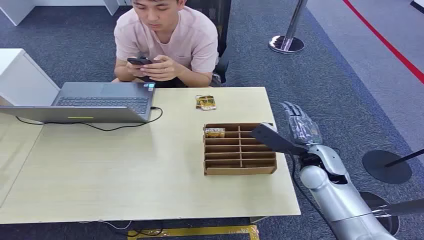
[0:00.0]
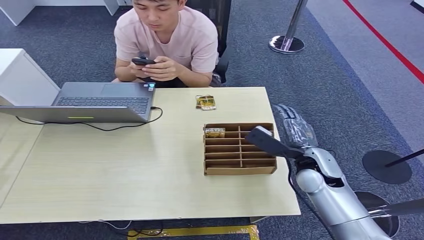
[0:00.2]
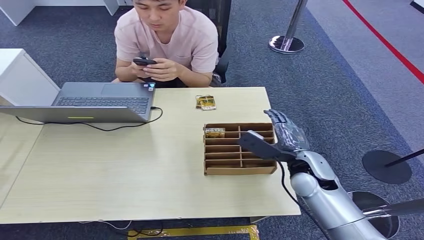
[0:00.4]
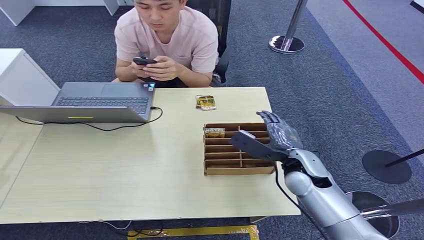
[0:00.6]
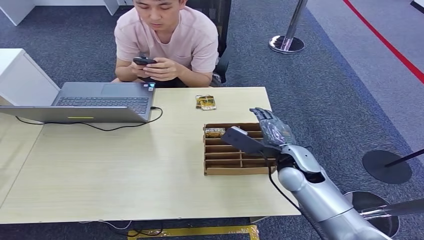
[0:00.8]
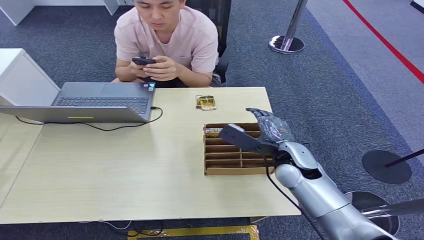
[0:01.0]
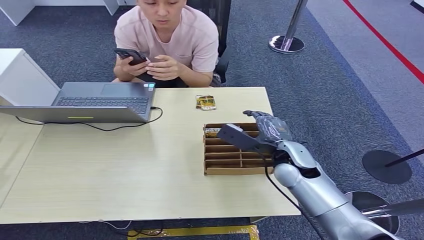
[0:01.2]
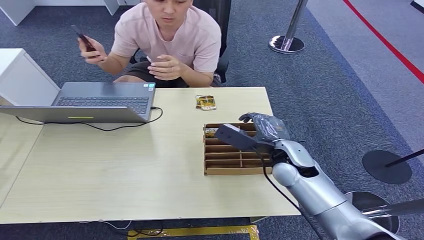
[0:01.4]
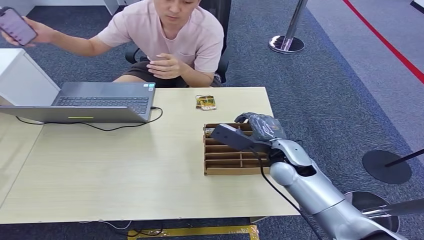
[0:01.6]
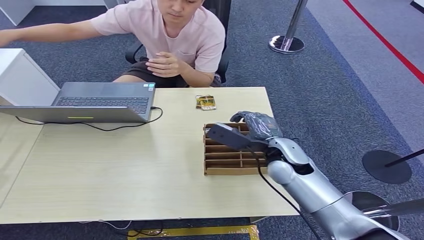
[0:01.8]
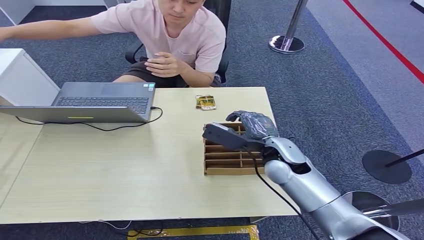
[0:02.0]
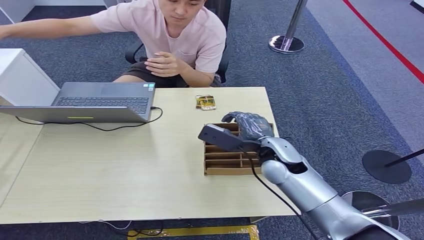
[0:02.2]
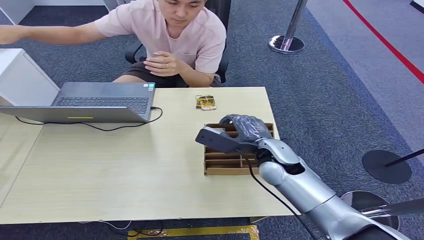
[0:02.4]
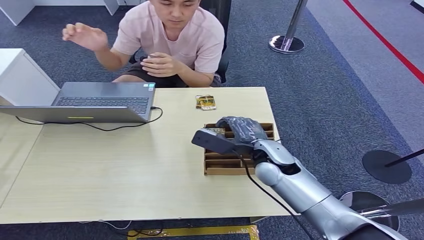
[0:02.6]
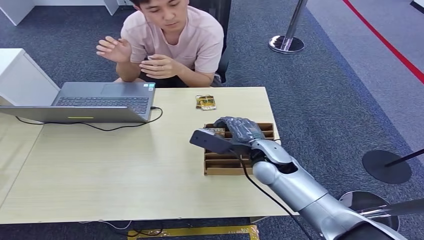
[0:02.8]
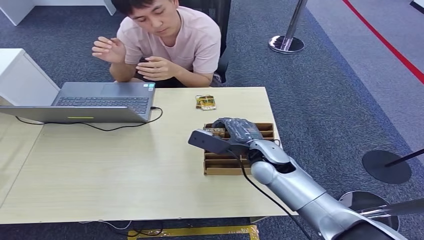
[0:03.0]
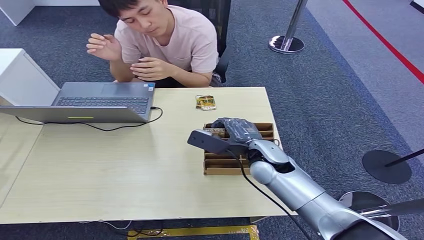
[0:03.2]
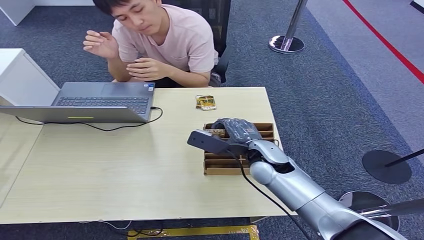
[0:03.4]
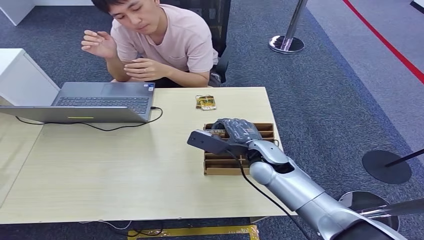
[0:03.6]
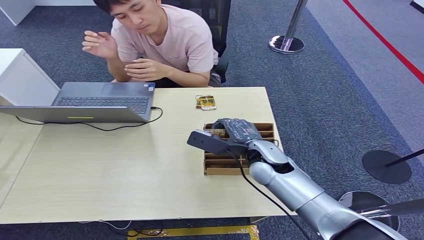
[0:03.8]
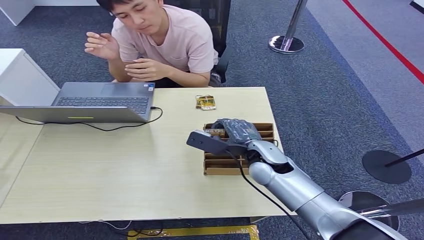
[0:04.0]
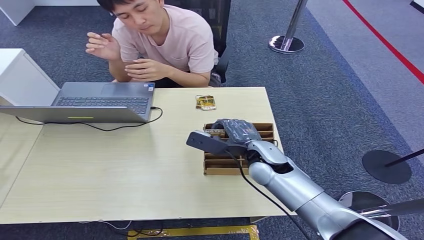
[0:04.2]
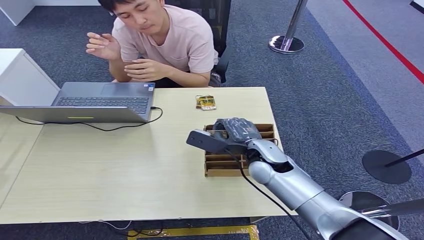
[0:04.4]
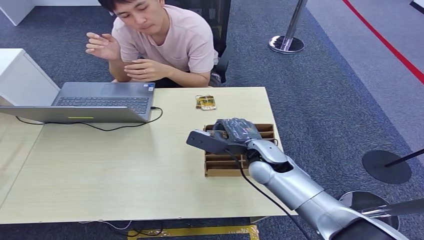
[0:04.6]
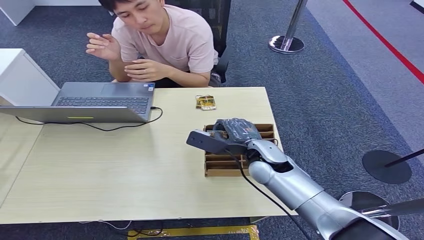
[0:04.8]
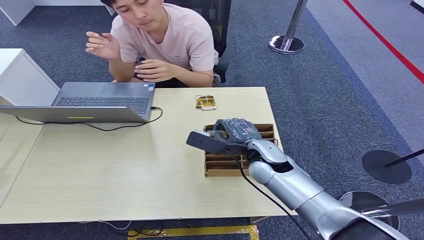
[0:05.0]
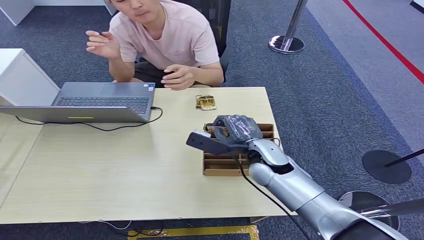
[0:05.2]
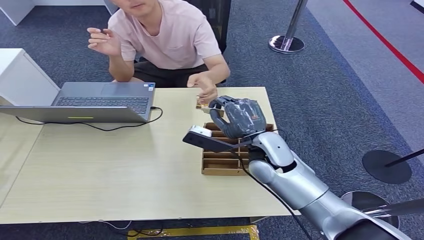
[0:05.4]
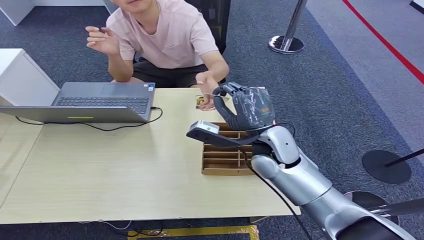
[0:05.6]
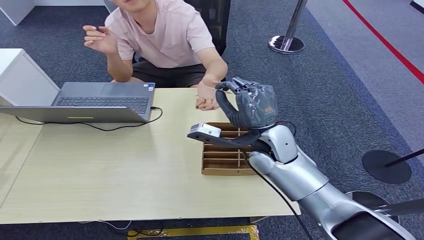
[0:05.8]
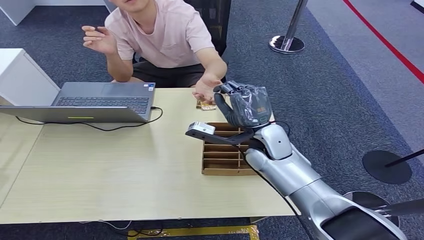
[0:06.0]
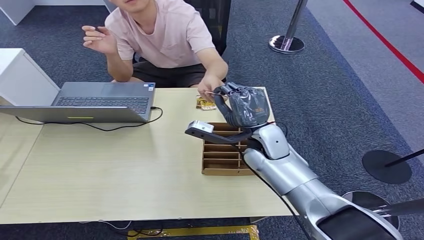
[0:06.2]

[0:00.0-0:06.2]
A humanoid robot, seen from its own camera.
Step, 0:00.0 to 0:05.2: Pick up the room card from the card holder.
Step, 0:05.4 to 0:06.2: Hand the room card to the target.
0:01.6 to 0:03.2: There are only small adjustments of the hands.
0:03.2 to 0:04.6: Both hands stay about where they are.
